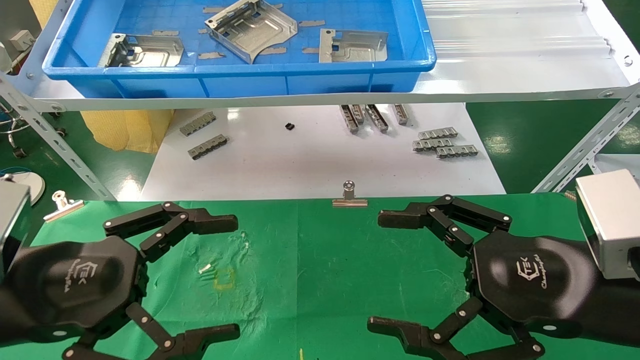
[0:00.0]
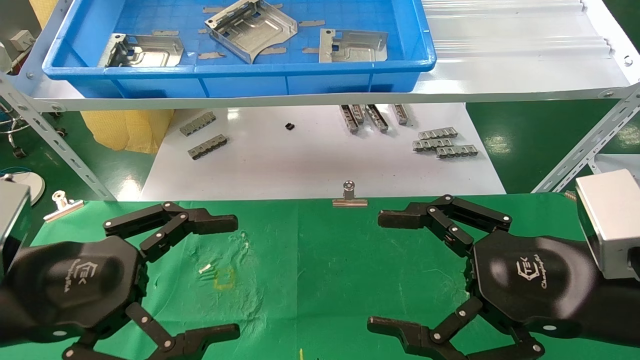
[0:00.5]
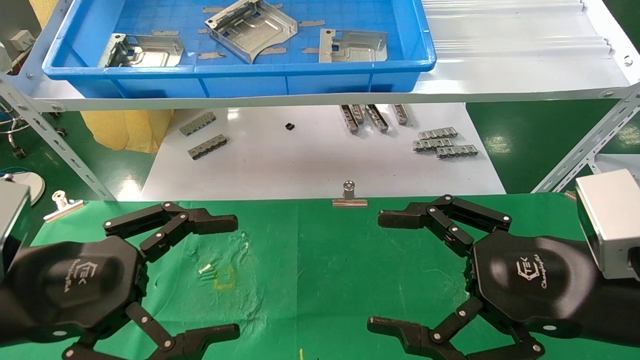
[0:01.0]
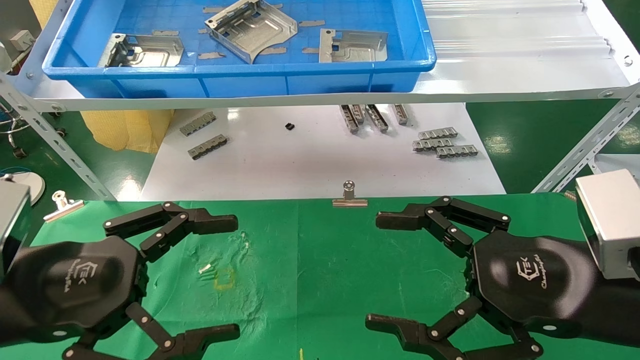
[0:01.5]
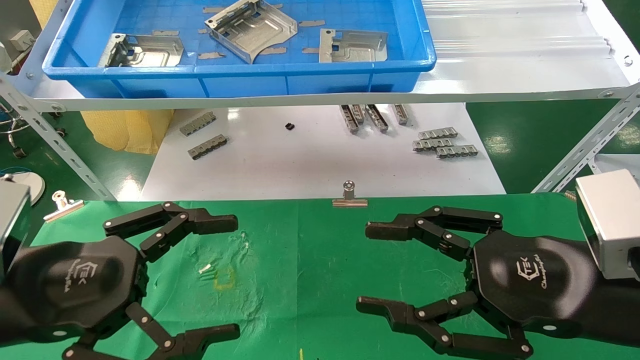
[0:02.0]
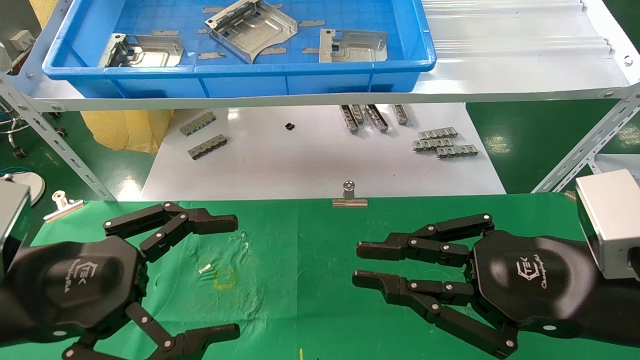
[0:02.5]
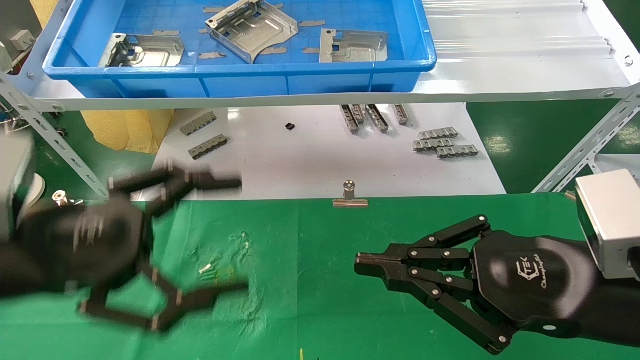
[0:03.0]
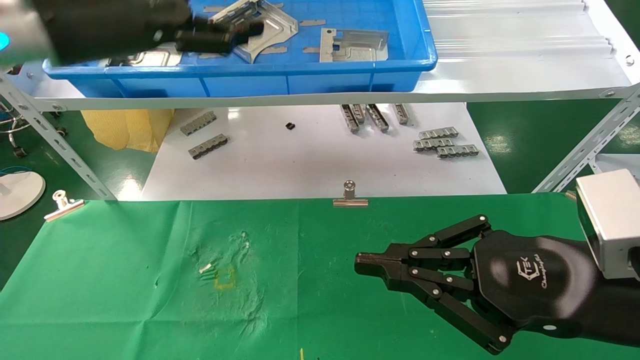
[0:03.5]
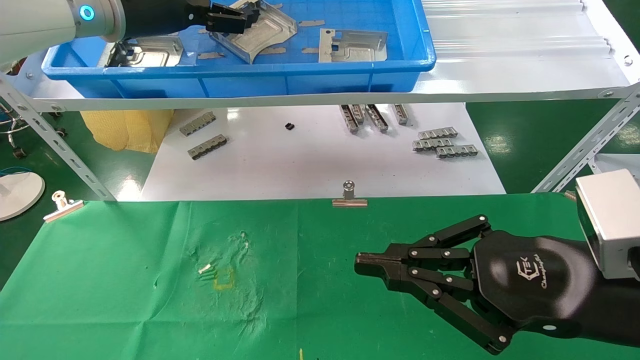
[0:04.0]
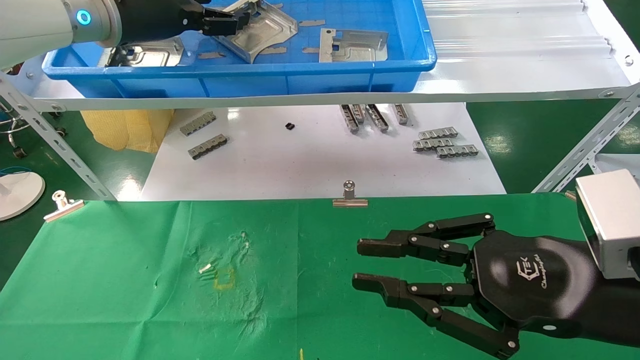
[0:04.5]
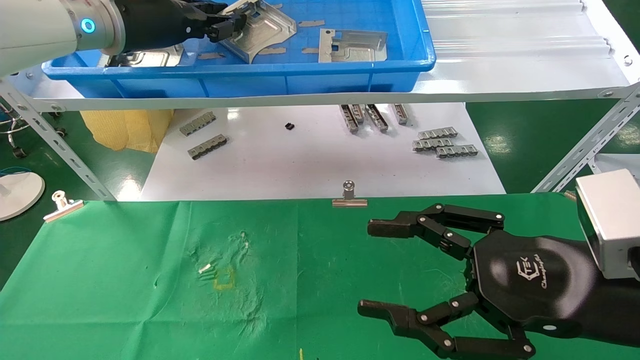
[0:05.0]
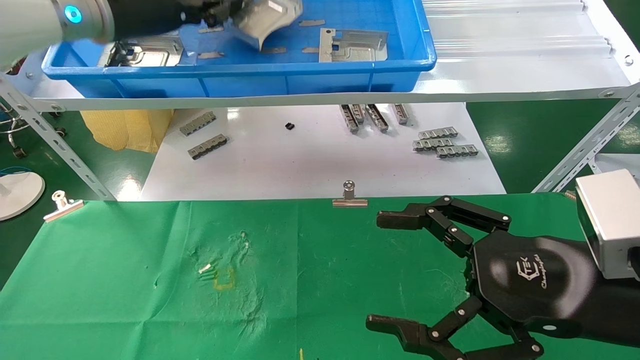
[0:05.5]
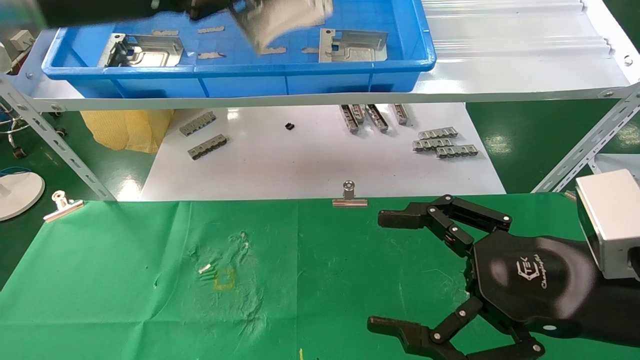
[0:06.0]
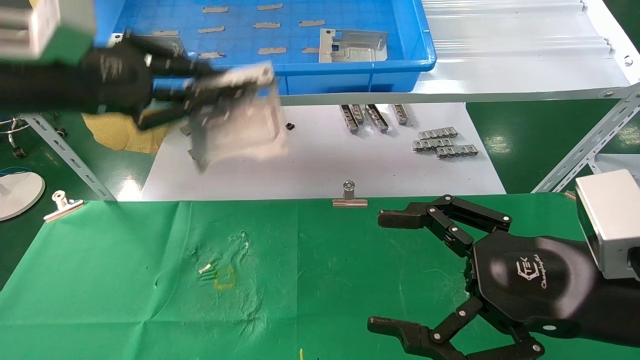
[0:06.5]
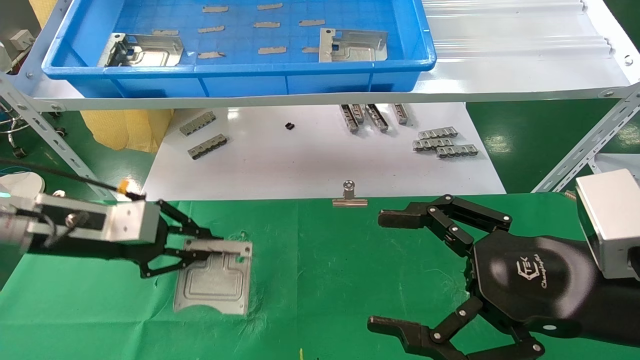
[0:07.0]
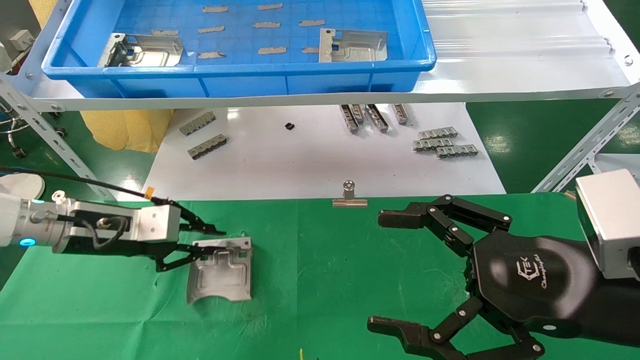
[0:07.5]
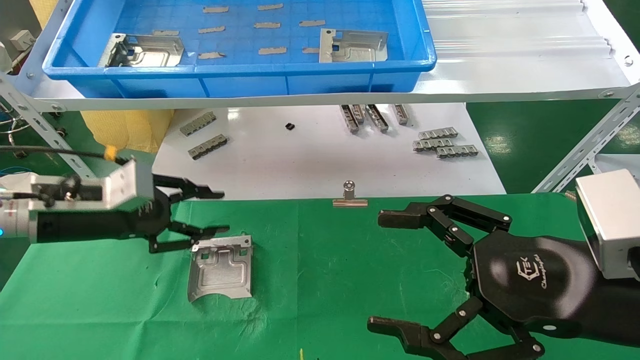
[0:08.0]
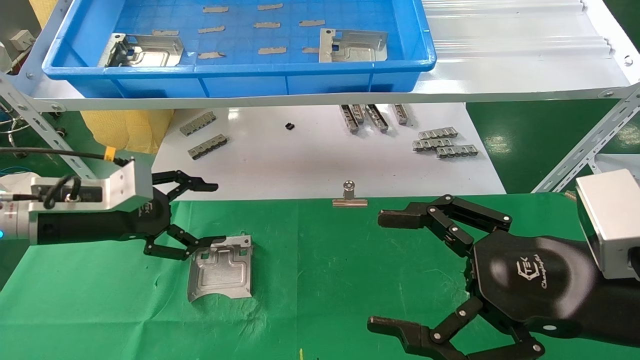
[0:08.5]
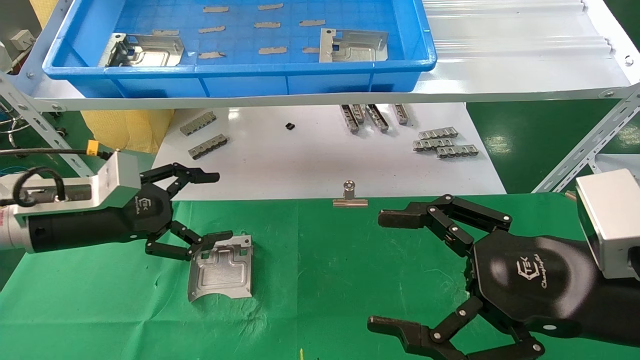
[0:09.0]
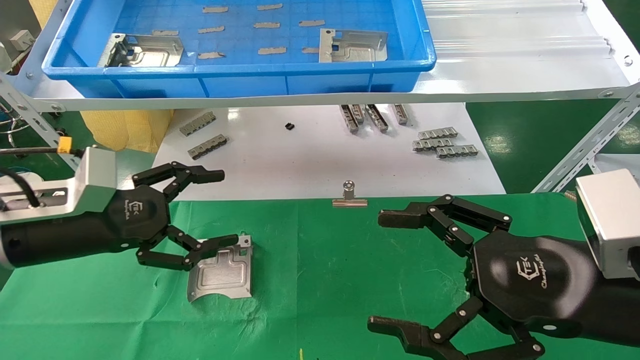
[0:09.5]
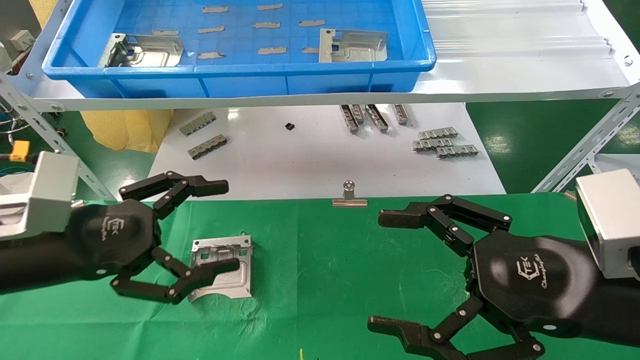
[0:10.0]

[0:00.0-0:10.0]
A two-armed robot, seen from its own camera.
Task of the whole recording: use the mechanical arm to pick up the parts and place them on the table.
Step, 0:03.5 to 0:05.0: Pick up the hard drive bracket from the feeding area.
Step, 0:05.5 to 0:07.5: Place the hard drive bracket into the box.
0:00.0 to 0:02.0: Neither gripper changes place.
0:02.0 to 0:04.0: The left gripper is displaced forward and upward by approximately 30 cm; the right gripper closes its fingers.
0:04.0 to 0:06.0: The right gripper opens up, while the left gripper travels backward by approximately 10 cm, and closes up.
0:06.0 to 0:08.0: The left gripper is displaced downward by about 25 cm.
0:08.0 to 0:10.0: The left gripper shifts approximately 10 cm backward, and opens its fingers.
